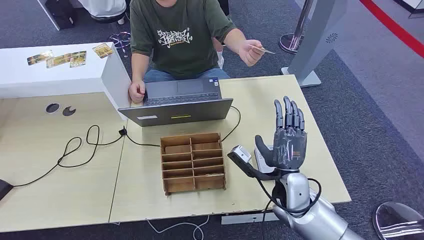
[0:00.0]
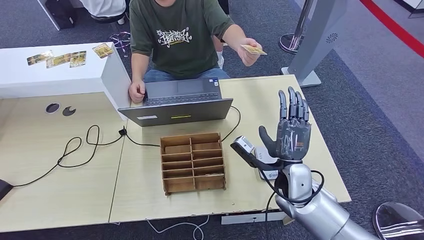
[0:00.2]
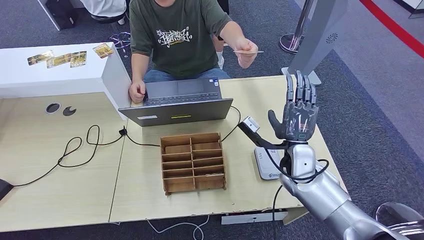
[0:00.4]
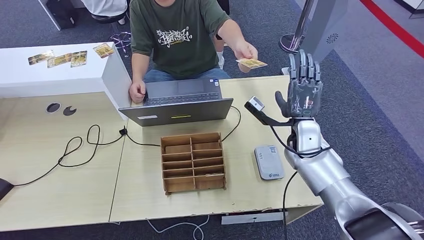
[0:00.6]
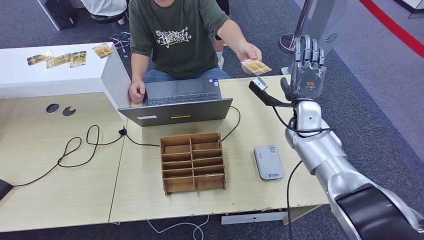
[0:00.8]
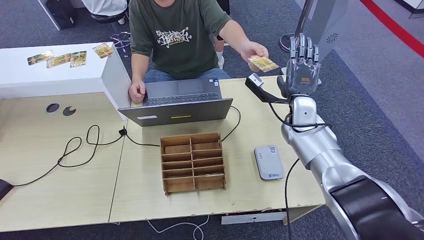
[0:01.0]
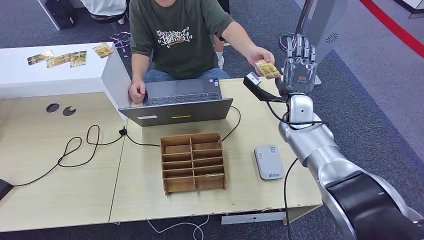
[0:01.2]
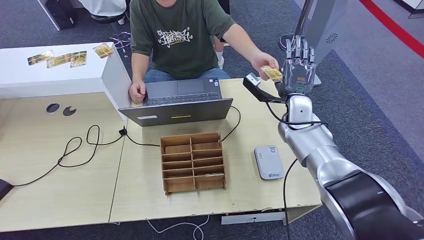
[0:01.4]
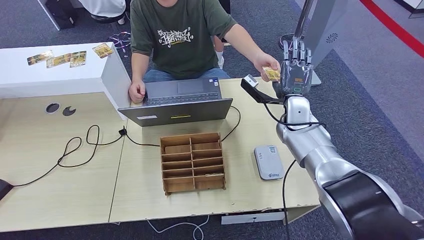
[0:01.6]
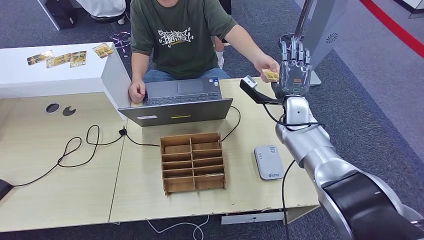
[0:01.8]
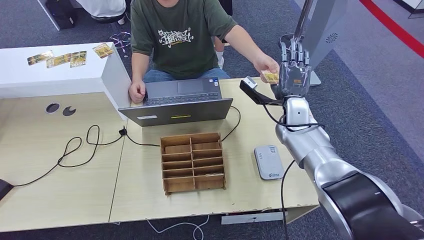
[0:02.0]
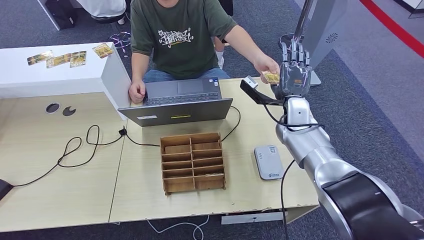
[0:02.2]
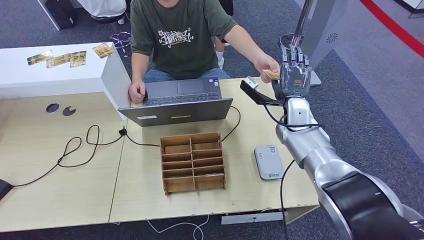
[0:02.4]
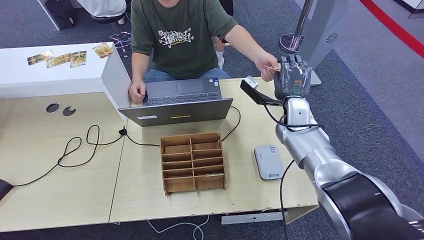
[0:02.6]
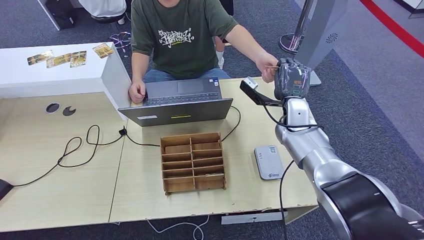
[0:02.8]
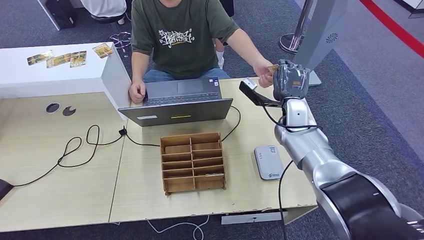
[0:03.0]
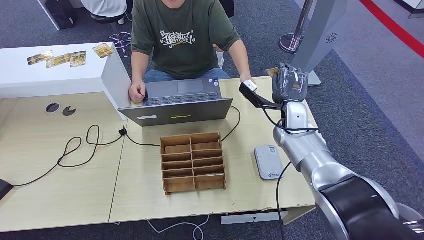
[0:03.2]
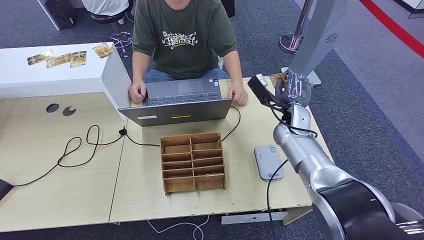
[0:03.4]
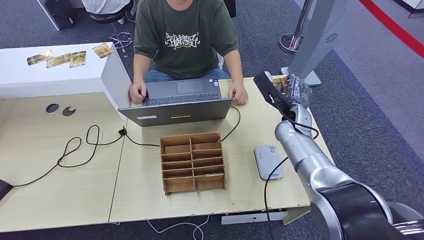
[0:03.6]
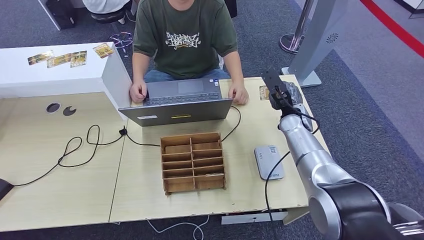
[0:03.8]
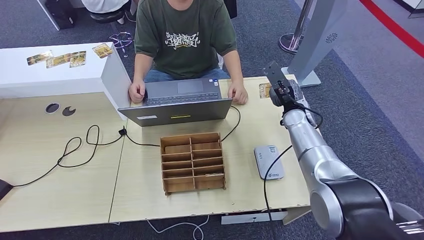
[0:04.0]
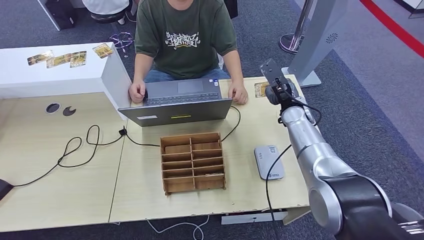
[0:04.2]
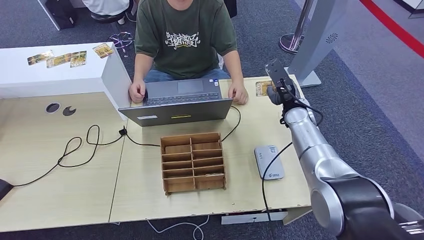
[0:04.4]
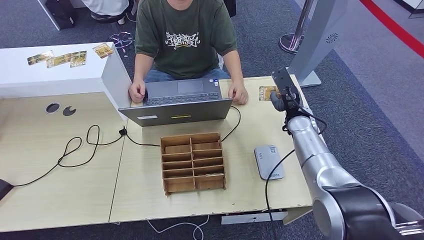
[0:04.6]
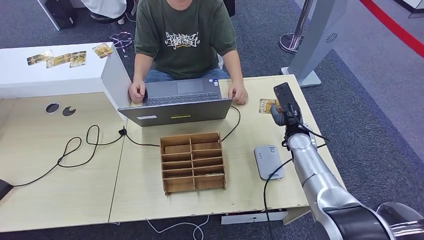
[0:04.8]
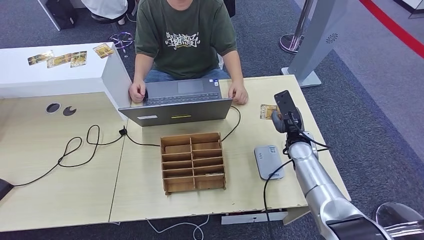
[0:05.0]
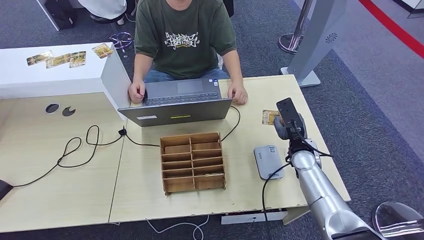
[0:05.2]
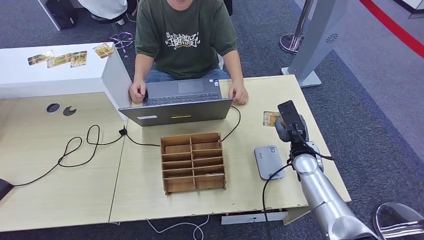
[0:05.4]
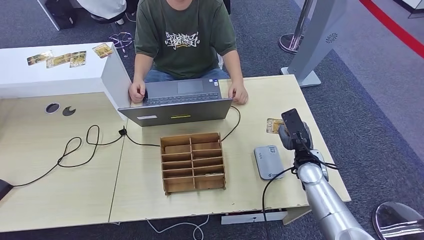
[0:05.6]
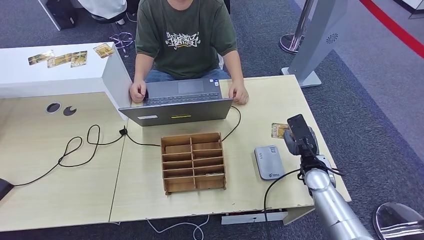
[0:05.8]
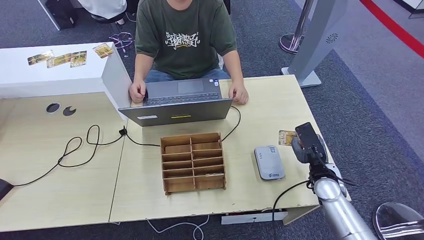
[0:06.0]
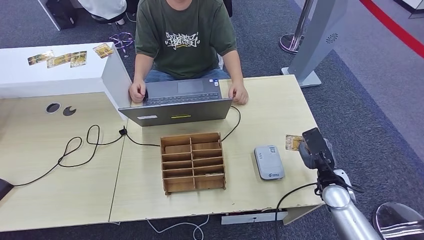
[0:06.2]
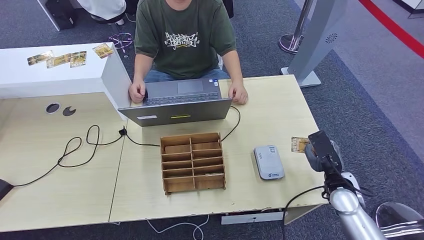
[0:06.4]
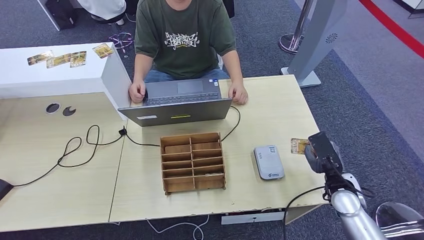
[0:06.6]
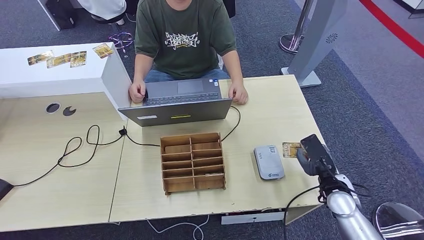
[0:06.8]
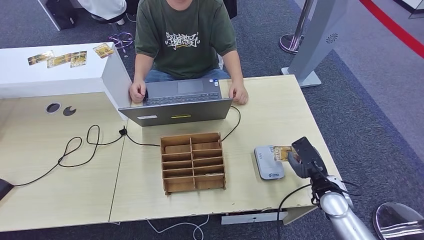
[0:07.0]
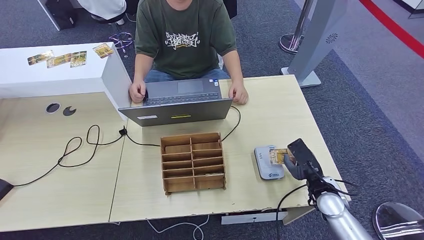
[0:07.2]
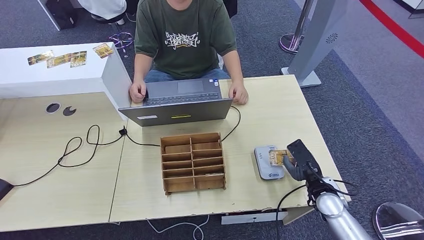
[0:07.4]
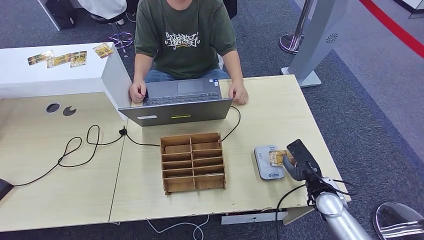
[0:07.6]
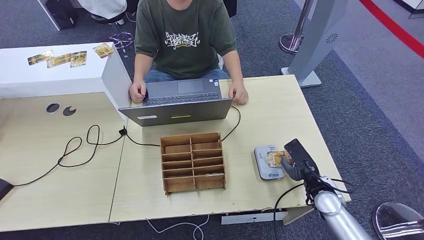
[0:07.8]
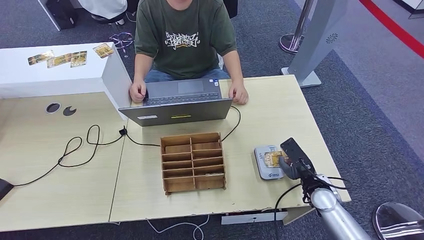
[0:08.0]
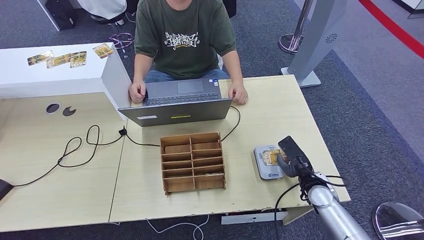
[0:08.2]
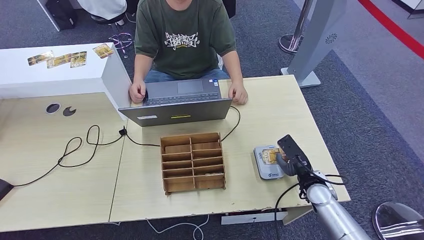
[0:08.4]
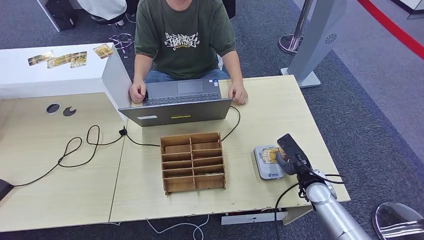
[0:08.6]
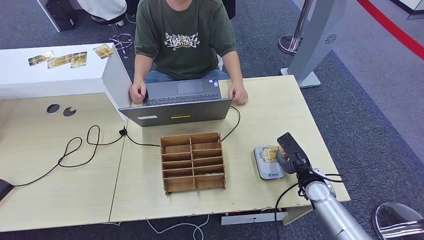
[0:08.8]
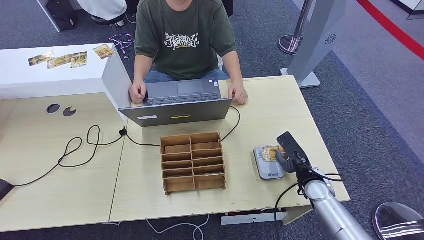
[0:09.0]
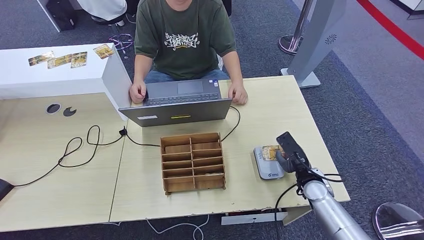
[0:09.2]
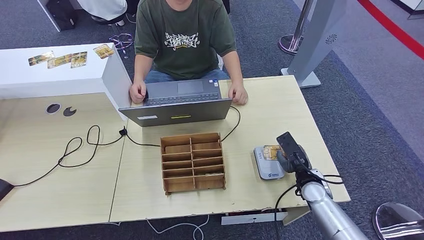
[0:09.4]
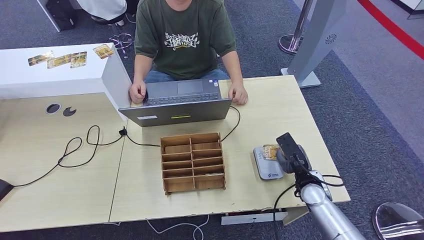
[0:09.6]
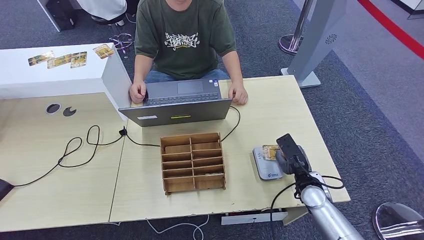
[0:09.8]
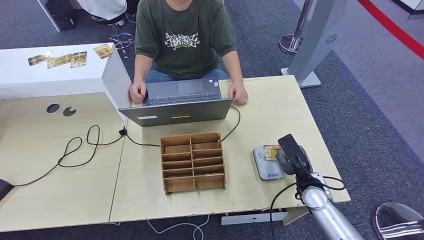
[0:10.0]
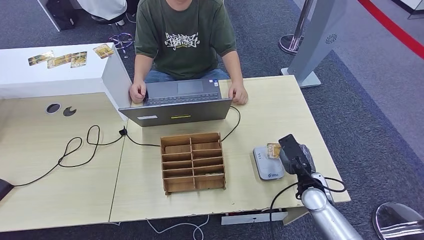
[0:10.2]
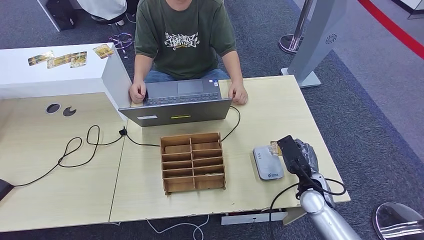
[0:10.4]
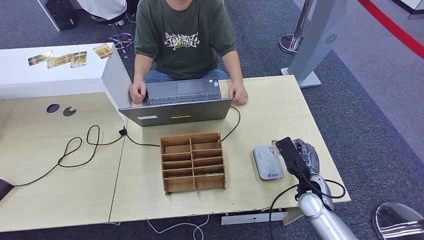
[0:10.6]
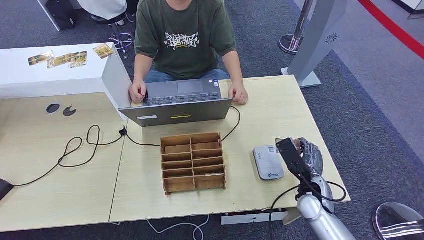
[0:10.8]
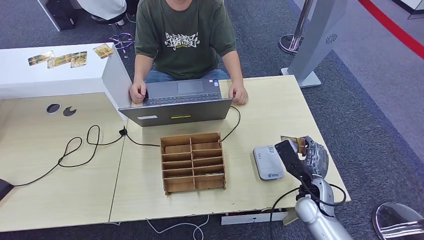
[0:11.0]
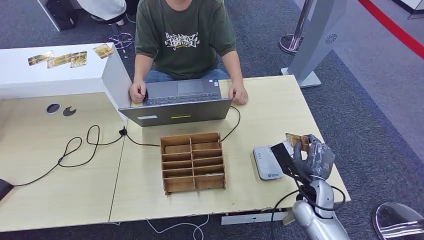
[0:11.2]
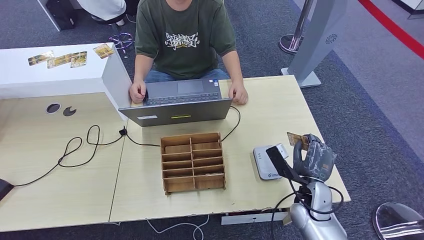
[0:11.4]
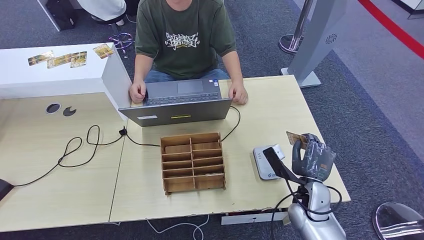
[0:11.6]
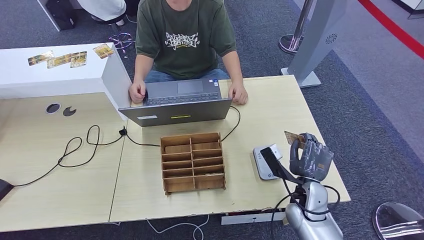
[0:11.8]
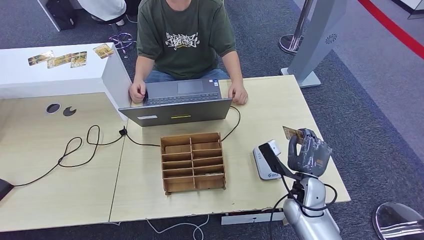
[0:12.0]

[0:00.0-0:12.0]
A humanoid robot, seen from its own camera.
Step, 0:00.0 to 0:04.2: Take the ID card from the person's hand.
Step, 0:04.6 to 0:11.4: Place the ID card on the card reader.
0:01.6 to 0:03.0: The hands make only small movements.
0:04.4 to 0:06.0: The right hand is displaced backward and downward by about 20 cm.
0:06.0 to 0:09.0: The hands stay close to where they were, moving slightly.
0:10.4 to 0:12.0: The right hand travels to the left by approximately 5 cm.

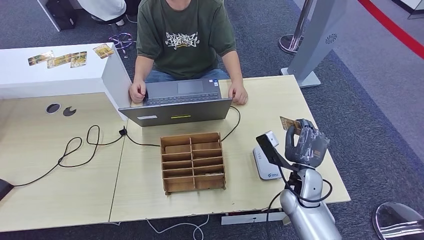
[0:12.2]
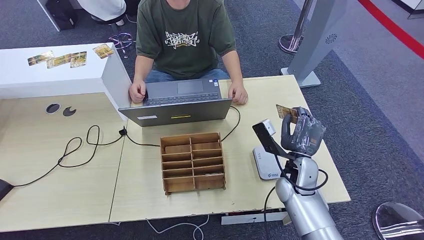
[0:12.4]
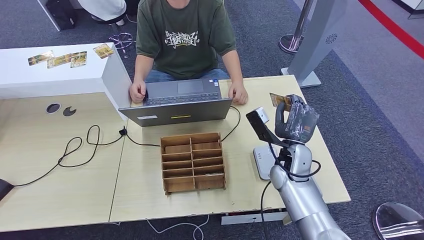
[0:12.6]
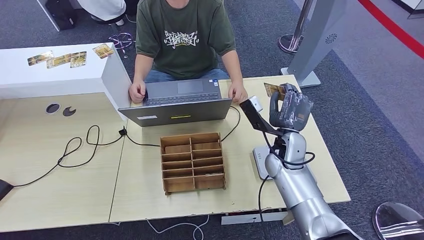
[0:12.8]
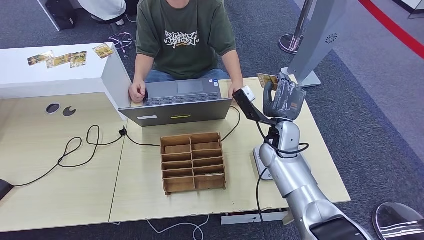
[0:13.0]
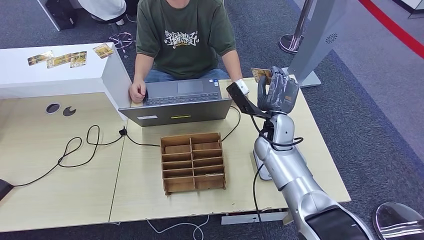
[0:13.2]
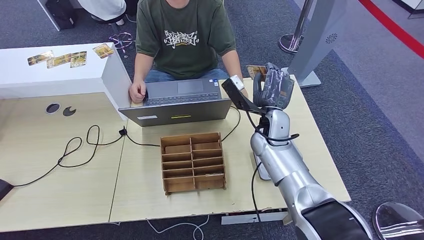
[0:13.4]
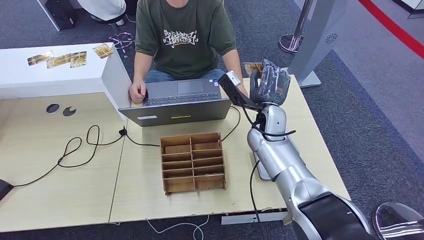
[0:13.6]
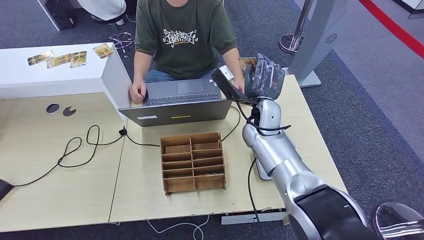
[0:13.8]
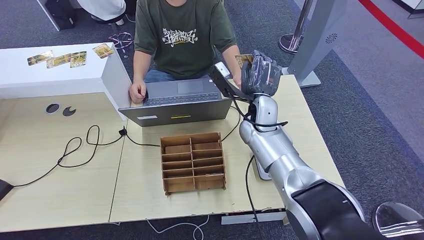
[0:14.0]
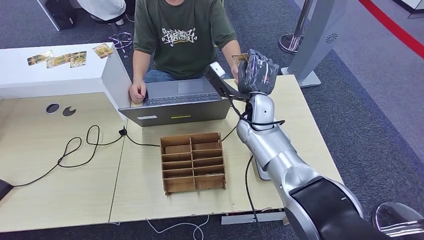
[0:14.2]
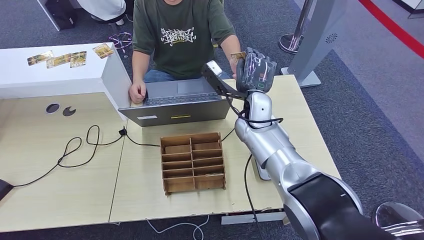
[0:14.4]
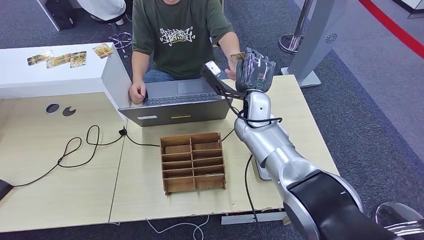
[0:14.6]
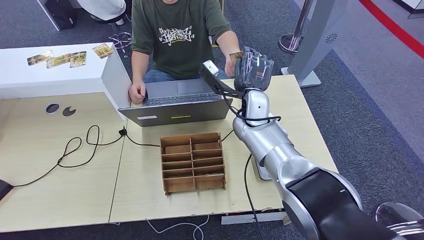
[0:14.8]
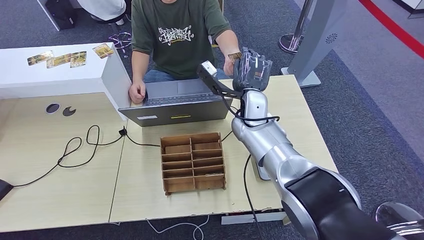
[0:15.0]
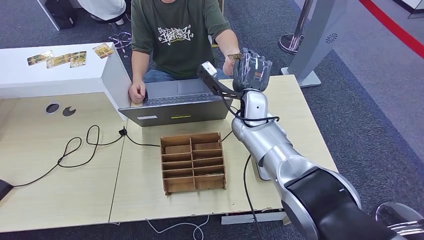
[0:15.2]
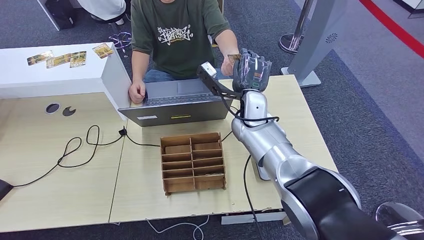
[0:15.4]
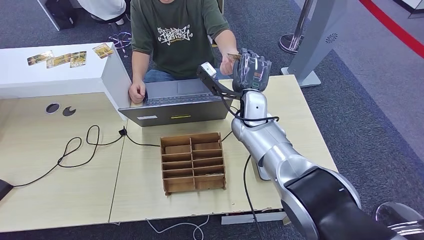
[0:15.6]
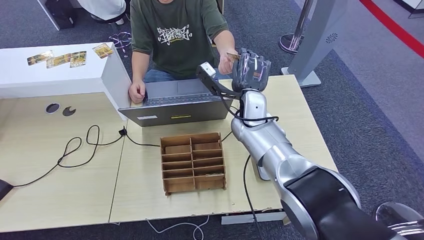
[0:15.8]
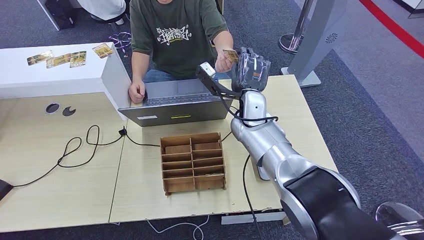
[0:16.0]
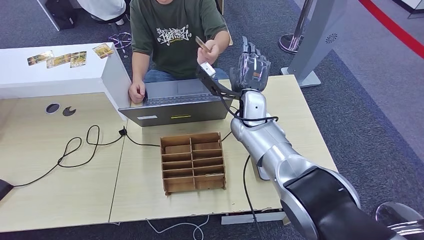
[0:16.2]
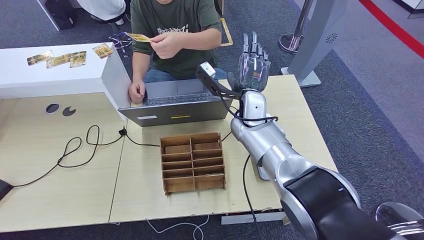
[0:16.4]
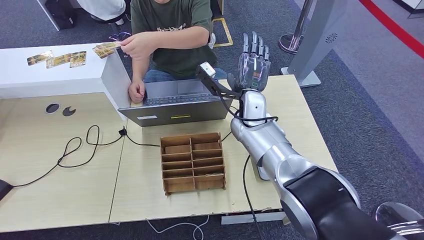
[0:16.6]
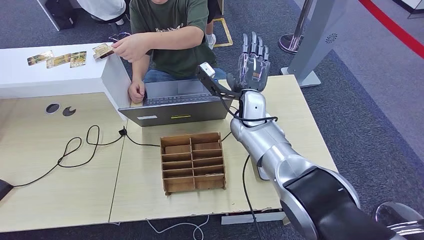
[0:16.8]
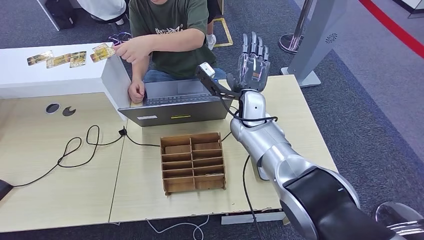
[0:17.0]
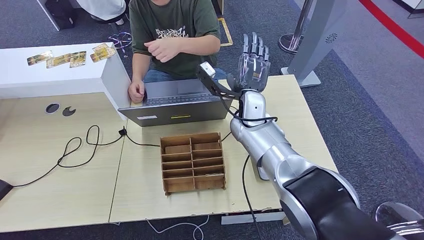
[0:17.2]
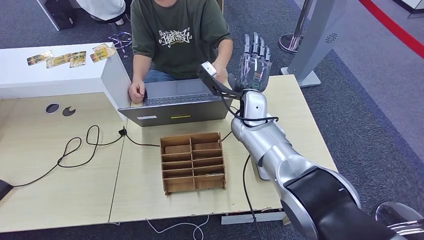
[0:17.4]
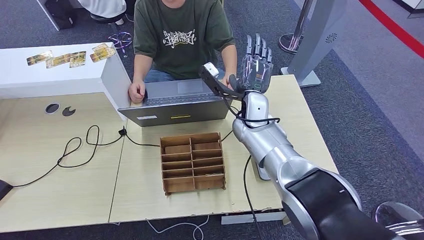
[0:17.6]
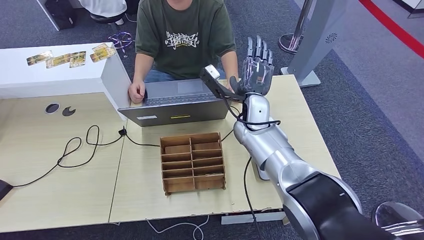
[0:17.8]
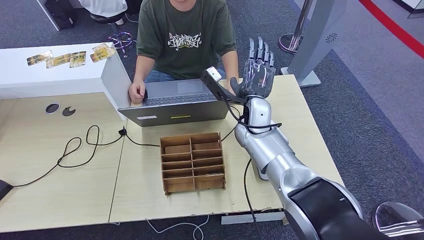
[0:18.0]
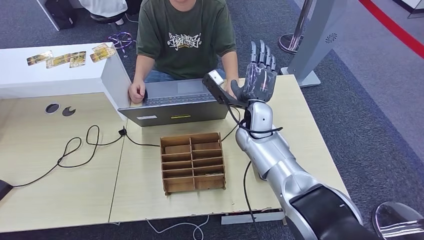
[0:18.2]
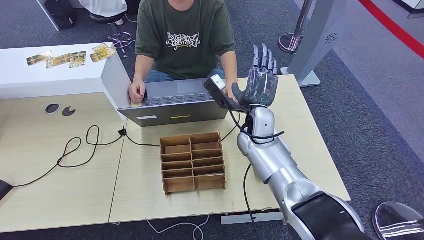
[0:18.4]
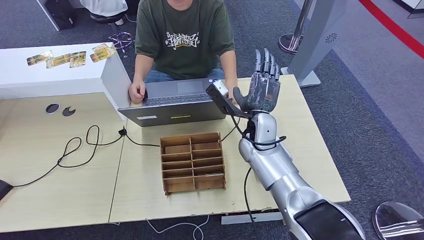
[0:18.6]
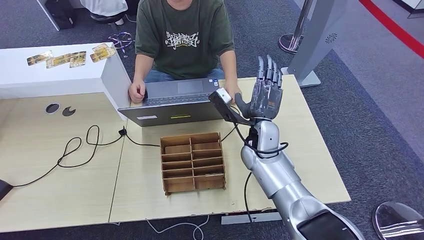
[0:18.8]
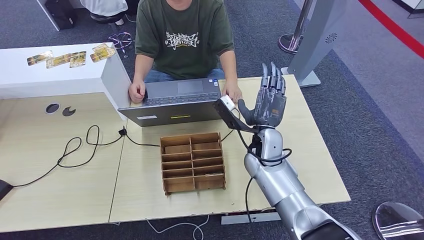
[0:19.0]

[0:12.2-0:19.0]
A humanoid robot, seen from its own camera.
Step, 0:12.2 to 0:17.0: Hand the ID card to the person.
0:12.2 to 0:13.6: The right hand heads forward, upward and to the left, covering roughly 20 cm.
0:13.6 to 0:15.0: The right hand ends up about 5 cm from where it was.
0:15.0 to 0:17.6: Both hands stay about where they are.
0:17.6 to 0:19.0: The right hand goes approximately 10 cm backward and downward.
